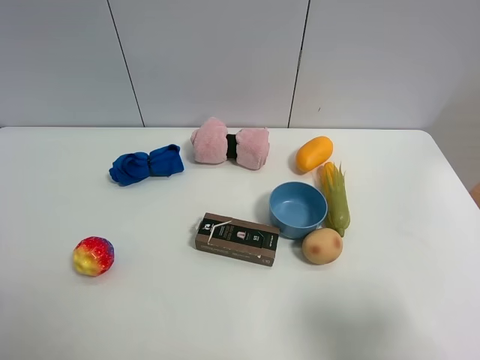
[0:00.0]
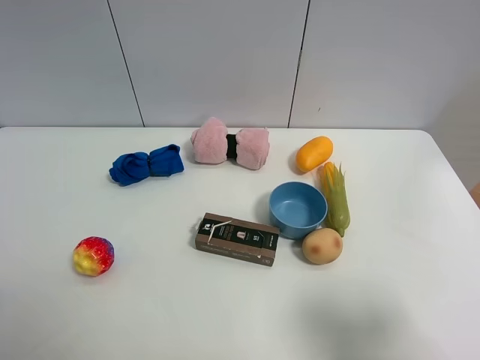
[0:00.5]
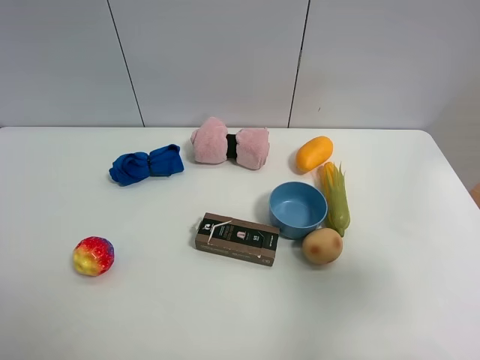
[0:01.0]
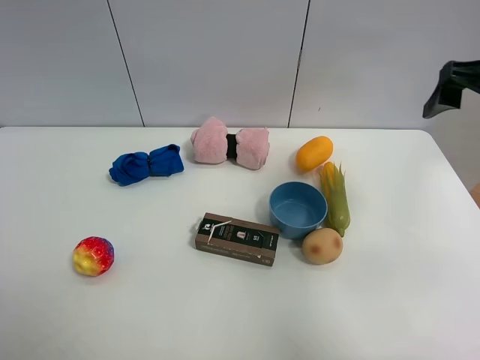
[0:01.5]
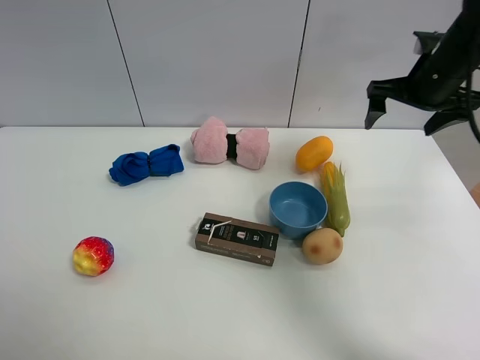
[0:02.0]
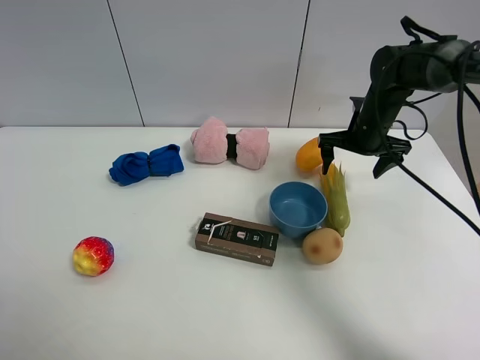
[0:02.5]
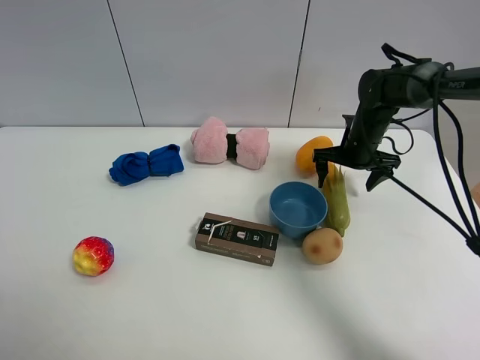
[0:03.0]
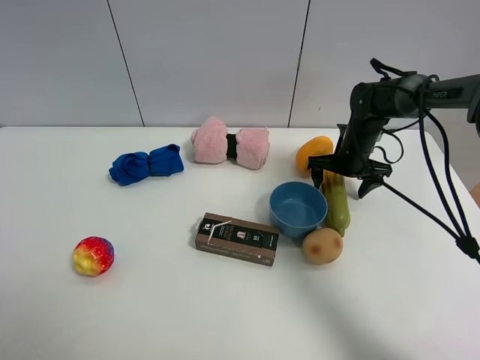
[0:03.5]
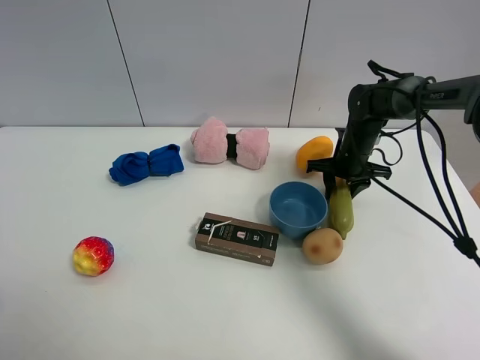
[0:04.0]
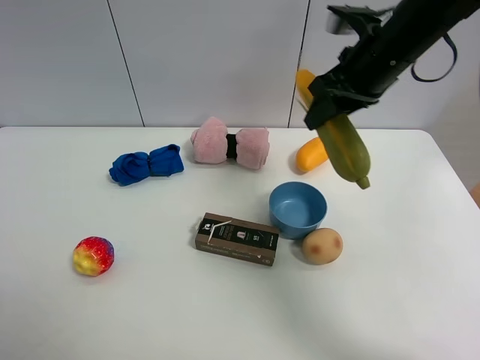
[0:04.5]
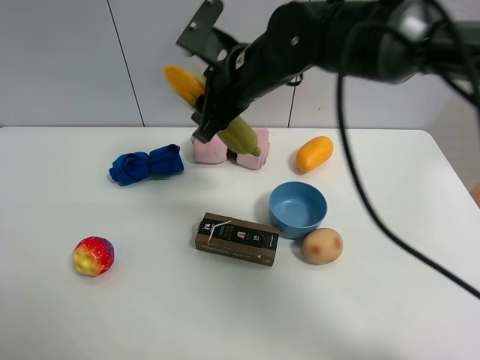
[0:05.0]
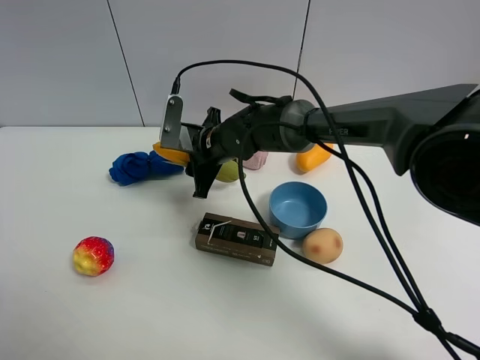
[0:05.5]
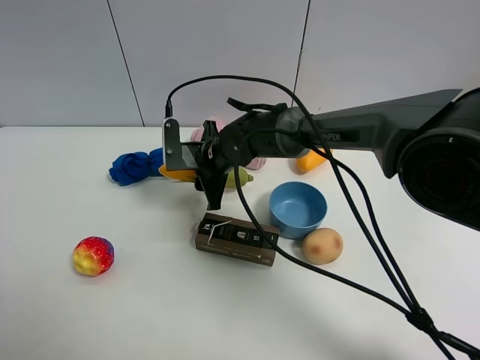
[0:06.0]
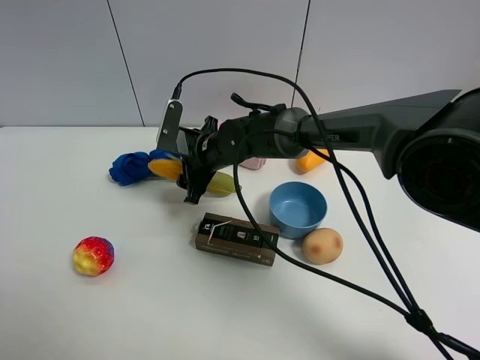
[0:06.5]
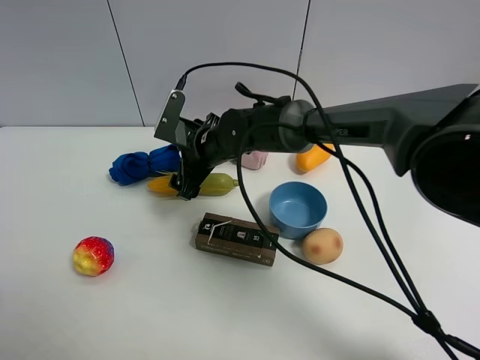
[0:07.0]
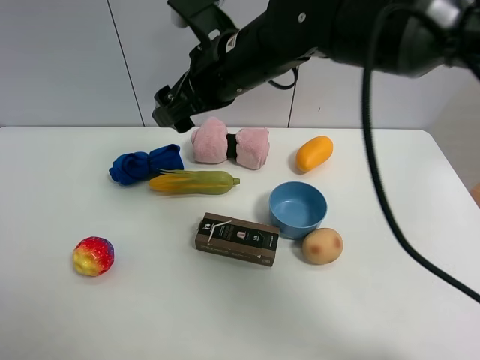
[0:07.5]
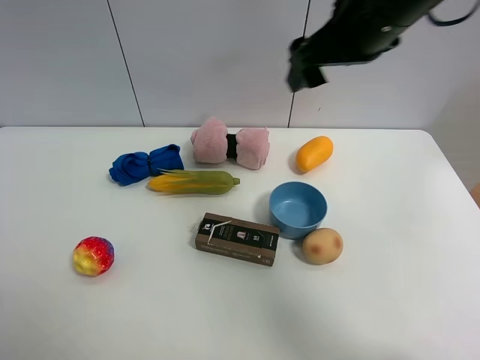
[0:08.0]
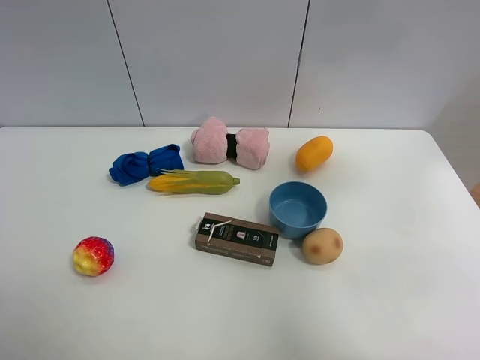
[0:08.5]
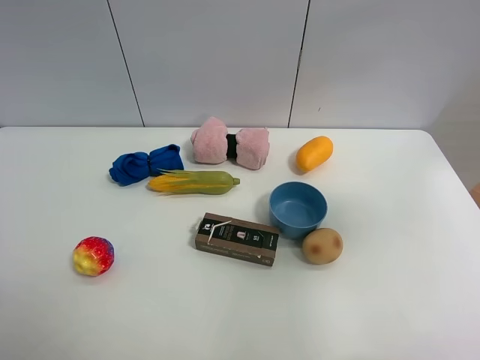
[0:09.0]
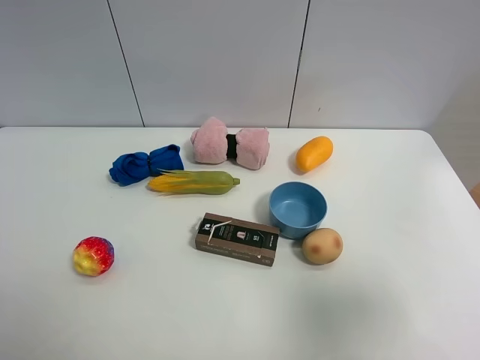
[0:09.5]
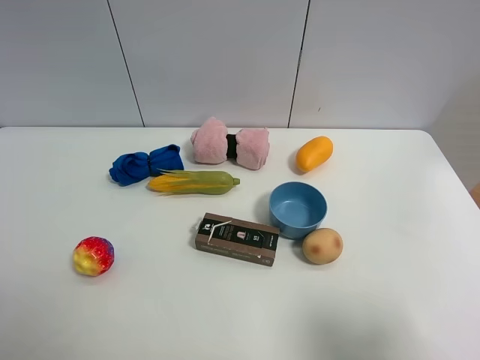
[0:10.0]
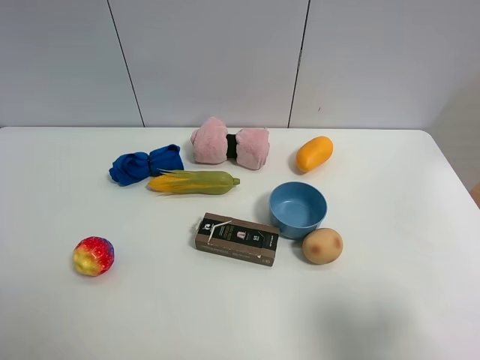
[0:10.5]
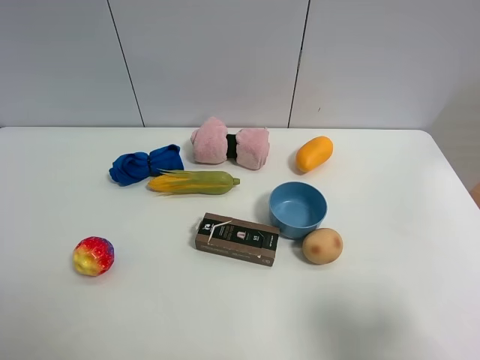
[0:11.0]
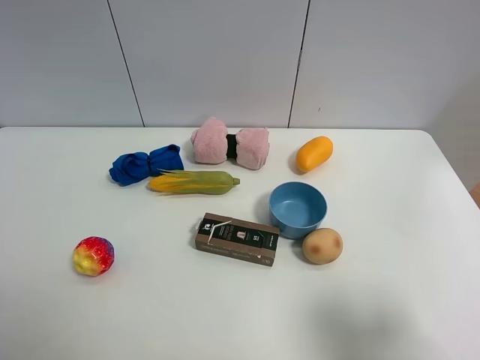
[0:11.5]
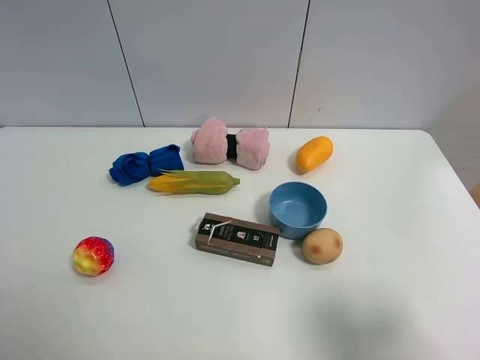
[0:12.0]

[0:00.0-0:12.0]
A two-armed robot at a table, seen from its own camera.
Task of the whole recording: the gripper move the object.
Step, 0:00.0 to 0:03.5: Grasp the corn with the right gripper.
Step, 0:04.0 to 0:06.5: Place the corn on the table with the right gripper.
0:00.0 to 0:02.0: The right gripper shifts approximately 40 cm forward.
0:02.0 to 0:04.0: The right gripper moves downward, about 20 cm, and closes its fingers.
0:04.0 to 0:06.0: The right gripper goes roughly 25 cm to the left.
0:06.0 to 0:08.0: The right gripper shifts about 30 cm upward and to the right, and opens up.
0:08.0 to 0:10.0: The right gripper heads backward and to the right, covering approximately 35 cm.

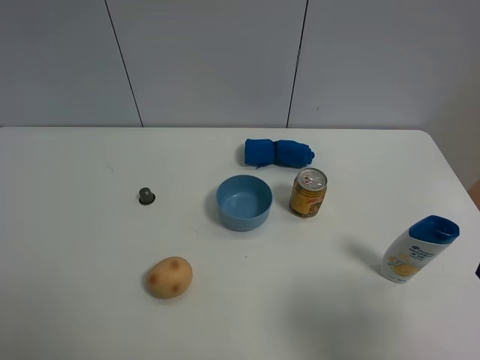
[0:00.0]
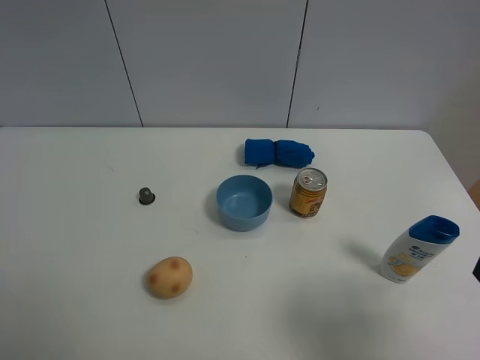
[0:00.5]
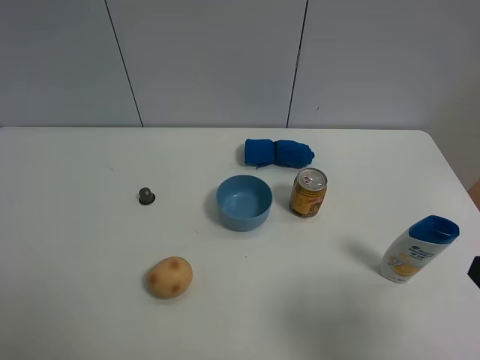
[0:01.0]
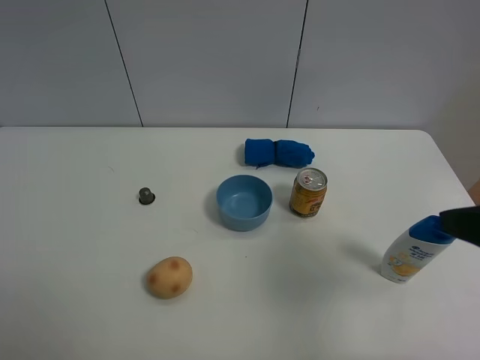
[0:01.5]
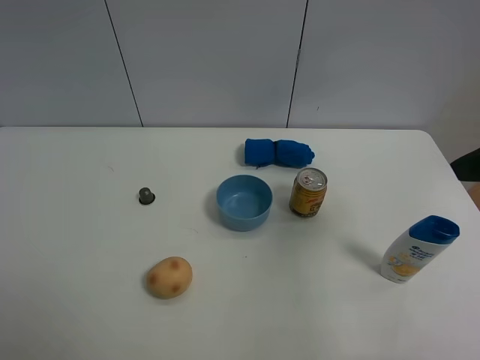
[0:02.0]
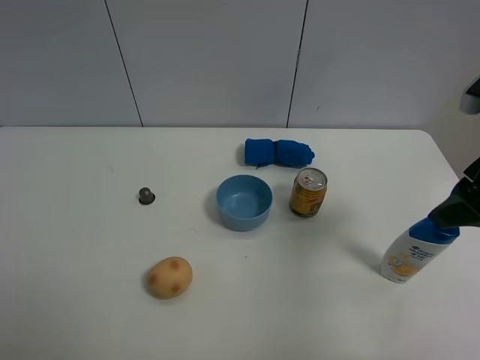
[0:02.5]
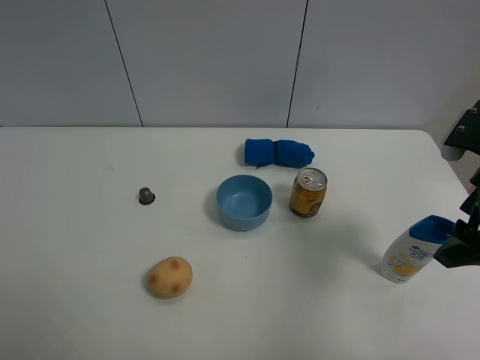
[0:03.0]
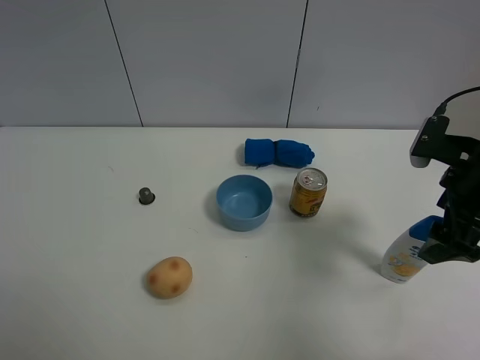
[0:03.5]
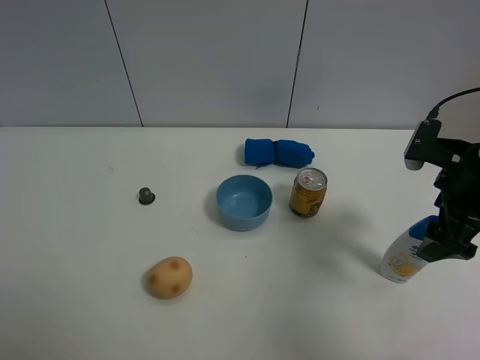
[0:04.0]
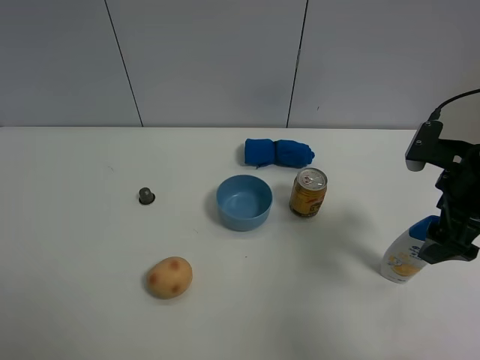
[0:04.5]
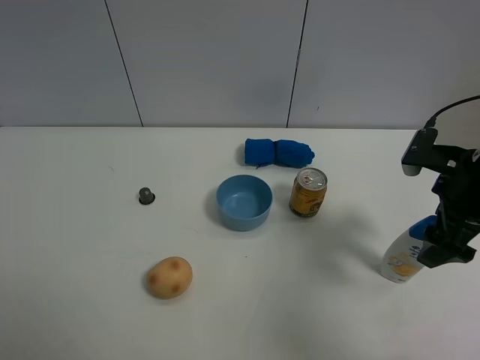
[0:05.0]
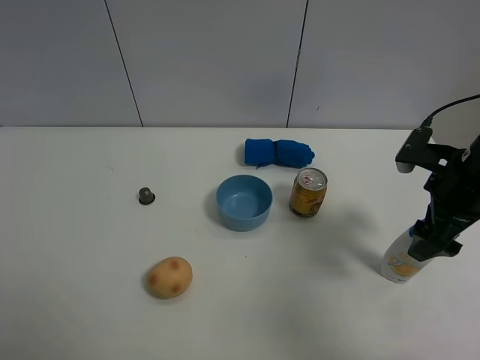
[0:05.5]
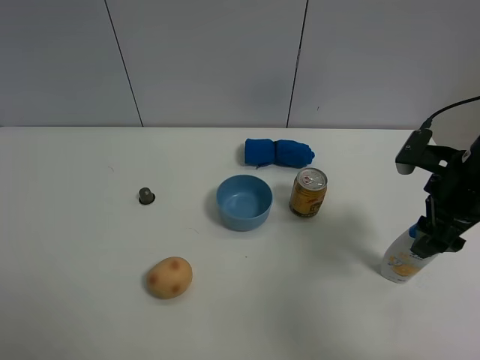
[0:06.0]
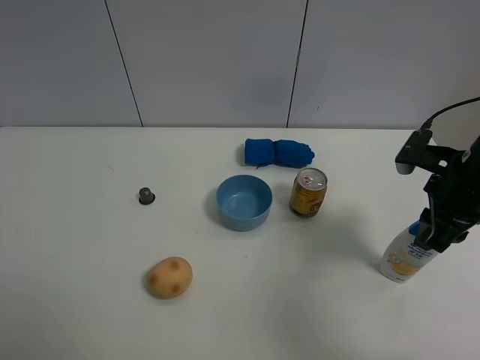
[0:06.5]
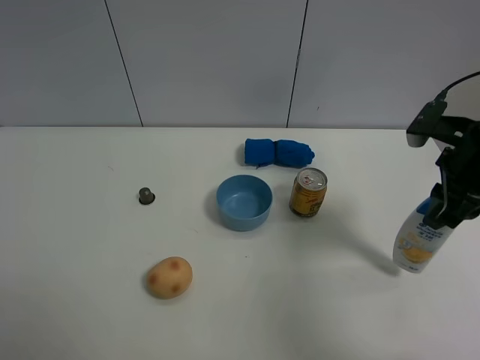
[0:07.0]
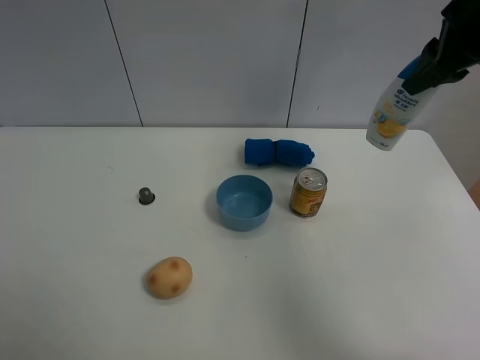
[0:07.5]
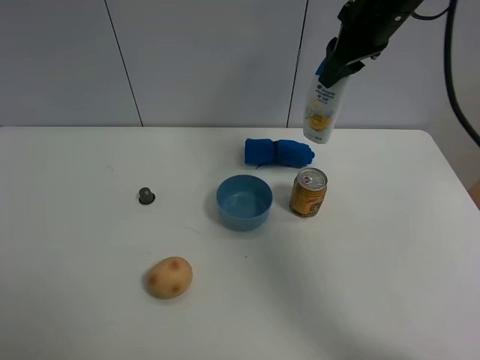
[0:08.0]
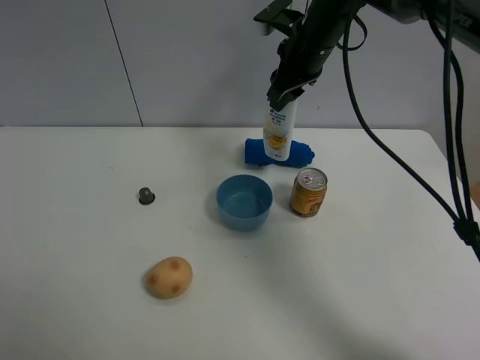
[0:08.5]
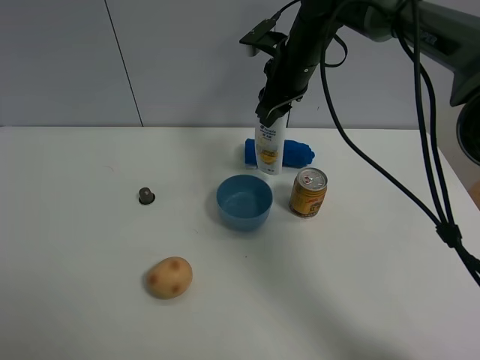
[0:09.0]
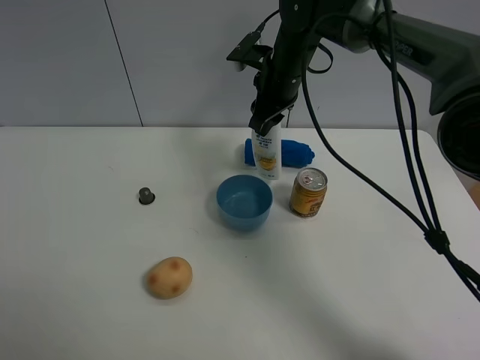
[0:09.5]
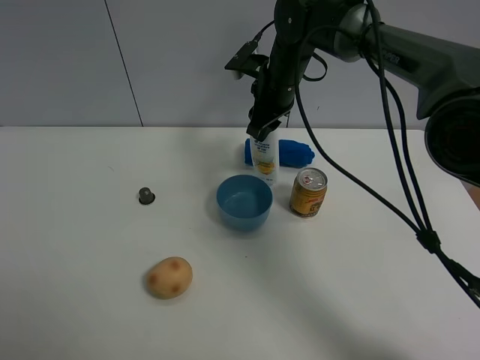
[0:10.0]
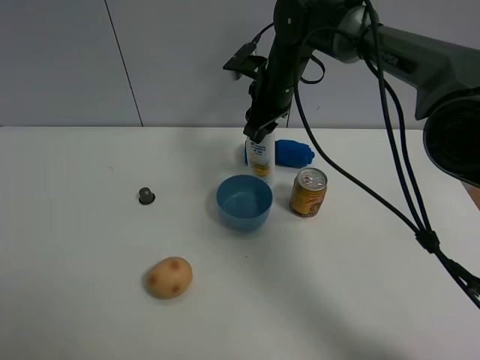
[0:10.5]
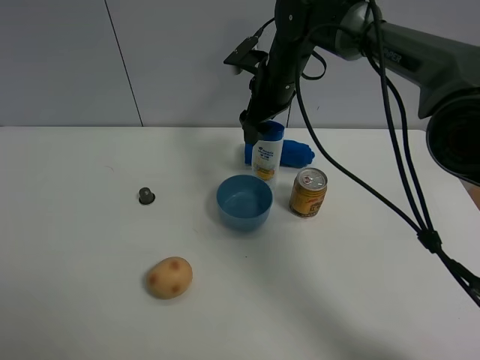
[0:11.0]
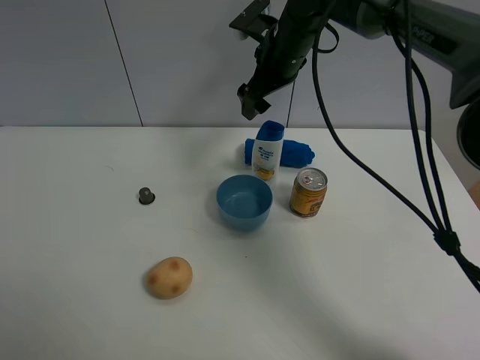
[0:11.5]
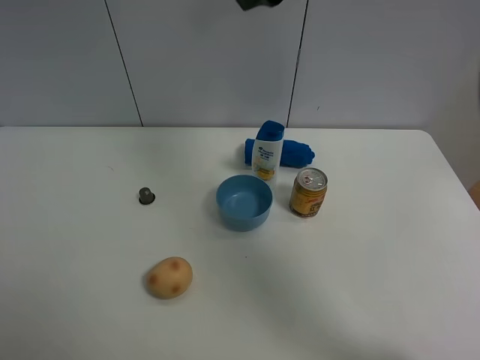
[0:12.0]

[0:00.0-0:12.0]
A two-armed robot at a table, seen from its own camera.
Task of the whole recording: the gripper move the object.
Step, 0:00.0 to 0:06.5: Grasp the shampoo with the right gripper.
Step, 0:07.0 to 0:11.0: Place the shampoo on the table with the right gripper.
0:00.0 to 0:02.0: The right gripper heads forward and upward, covering roughly 20 cm.
0:02.0 to 0:04.0: The right gripper is displaced downward and forward by approximately 15 cm.
0:04.0 to 0:06.0: The right gripper closes its fingers.
0:06.0 to 0:08.0: The right gripper heads forward, upward and to the left, covering approximately 25 cm, and closes its fingers.
0:08.0 to 0:10.0: The right gripper shifts roughly 15 cm downward and to the left.
0:10.0 to 0:12.0: The right gripper travels upward and backward by roughly 25 cm, and opens.

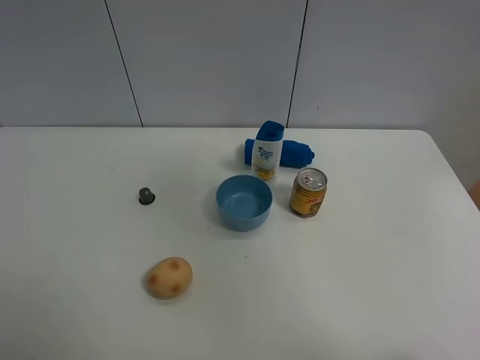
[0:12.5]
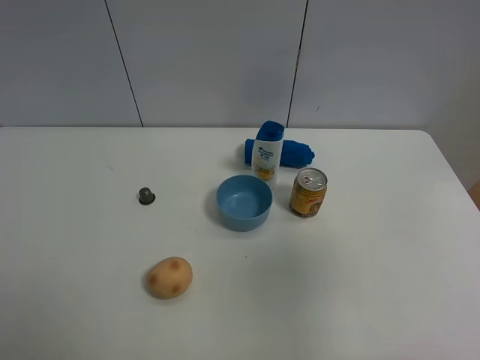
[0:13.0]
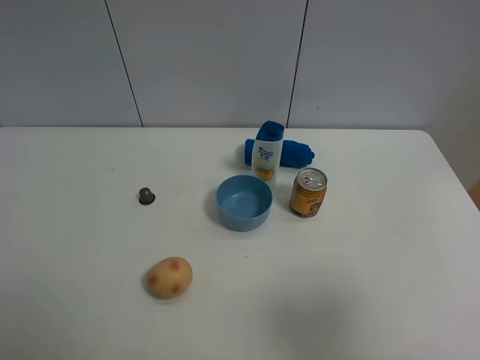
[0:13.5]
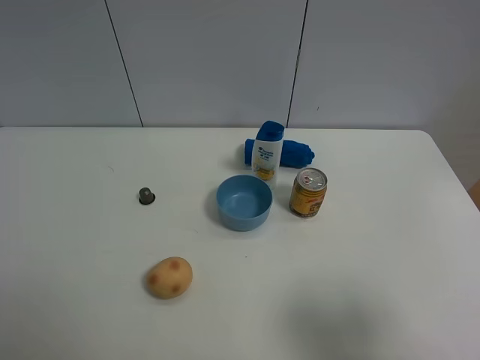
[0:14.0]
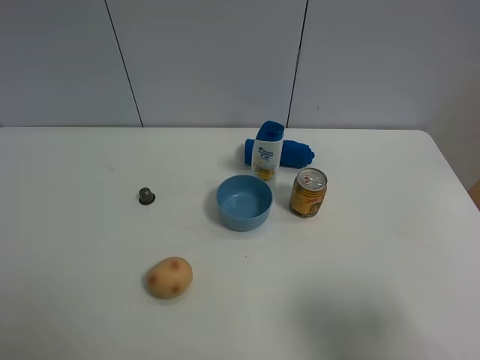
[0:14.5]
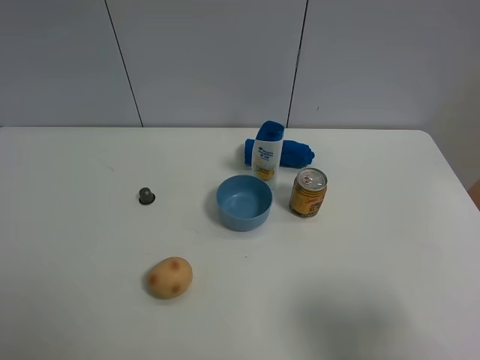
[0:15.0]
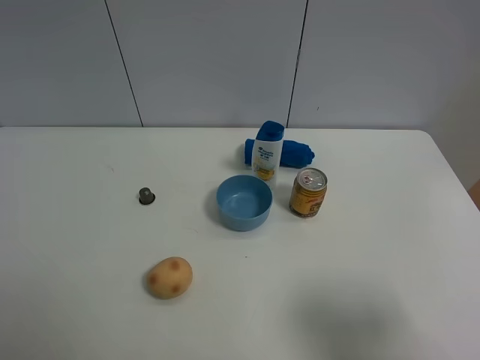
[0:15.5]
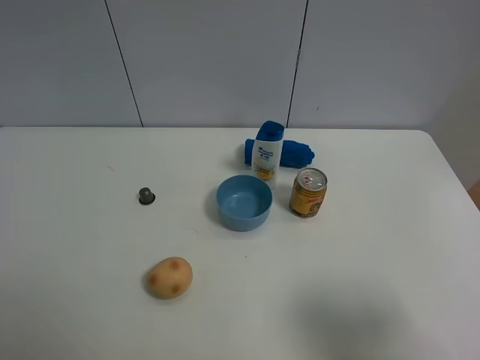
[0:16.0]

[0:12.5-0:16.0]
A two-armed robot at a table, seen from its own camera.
Task of the whole recording: the gripper move the object.
0:12.5 to 0:14.5: The right gripper heads downward, covering roughly 30 cm.
0:14.5 to 0:16.0: Both grippers stay about where they are.
